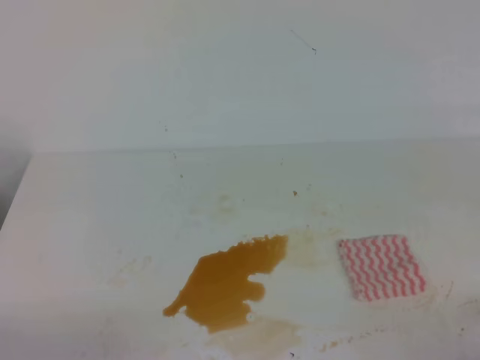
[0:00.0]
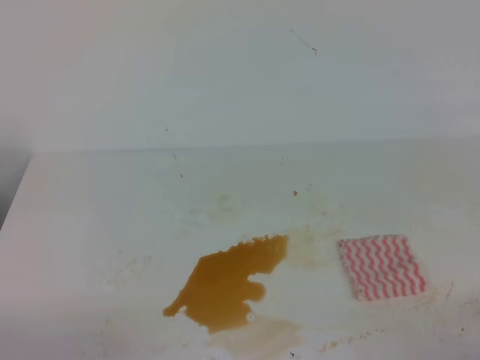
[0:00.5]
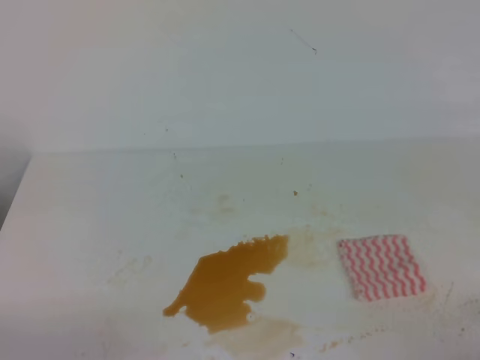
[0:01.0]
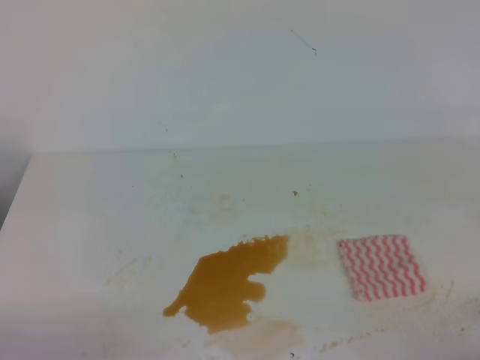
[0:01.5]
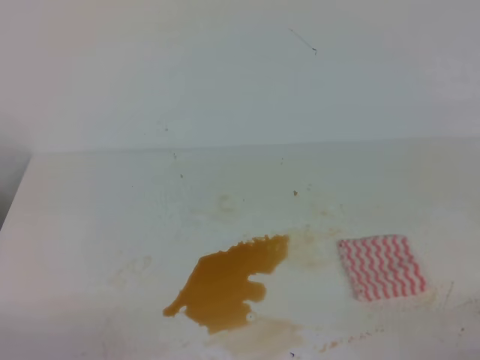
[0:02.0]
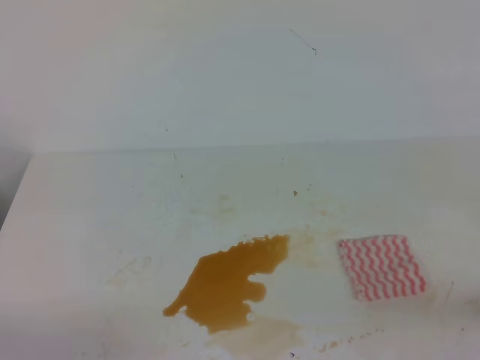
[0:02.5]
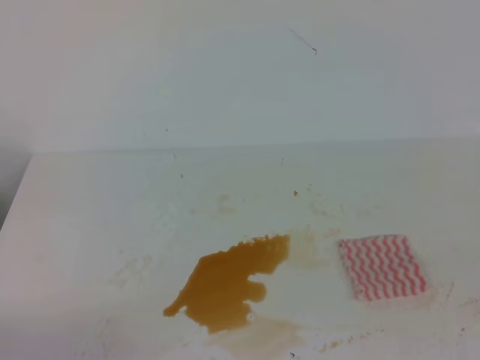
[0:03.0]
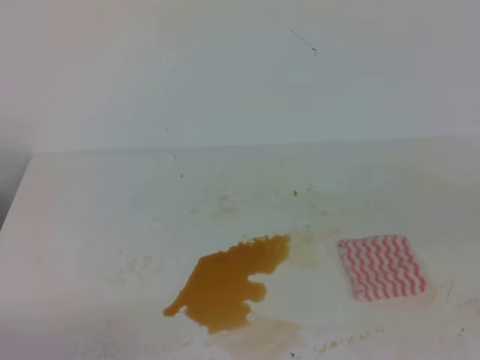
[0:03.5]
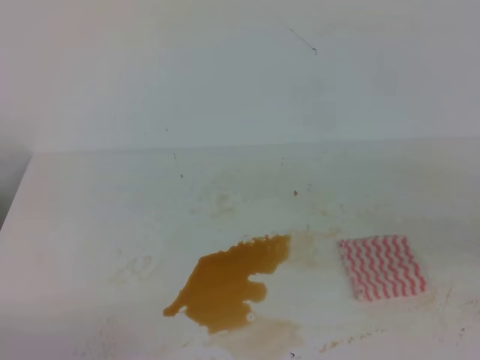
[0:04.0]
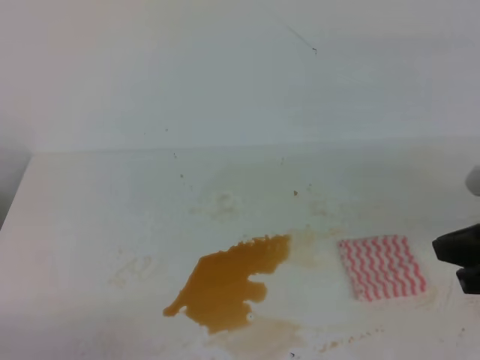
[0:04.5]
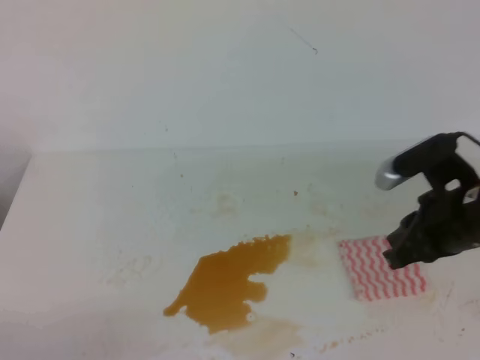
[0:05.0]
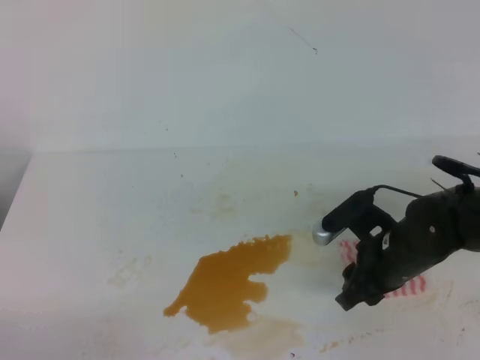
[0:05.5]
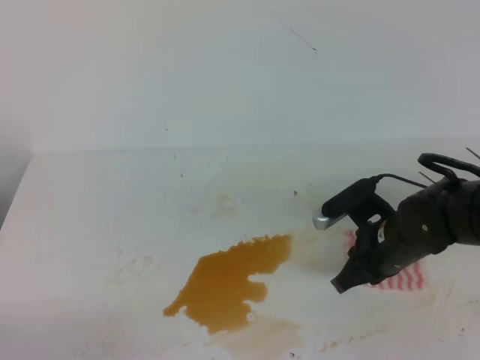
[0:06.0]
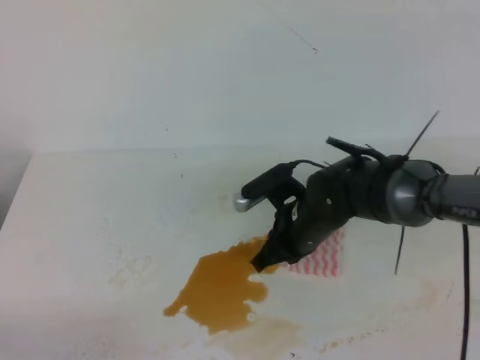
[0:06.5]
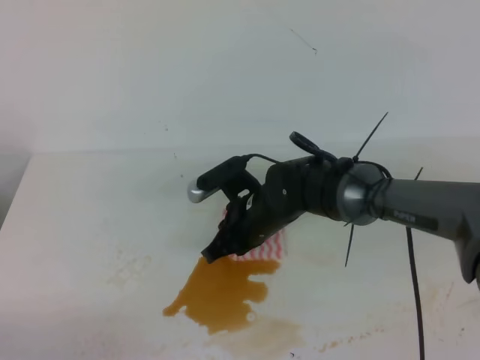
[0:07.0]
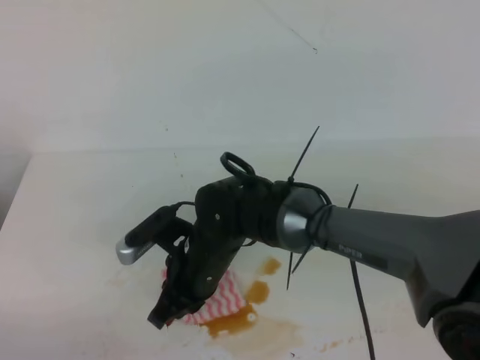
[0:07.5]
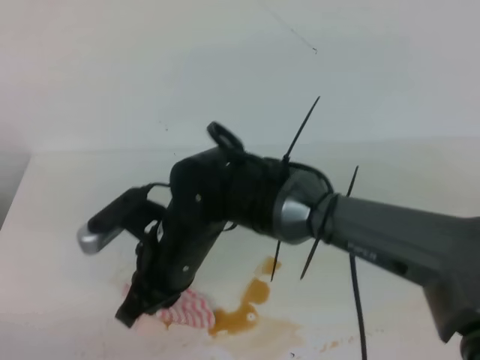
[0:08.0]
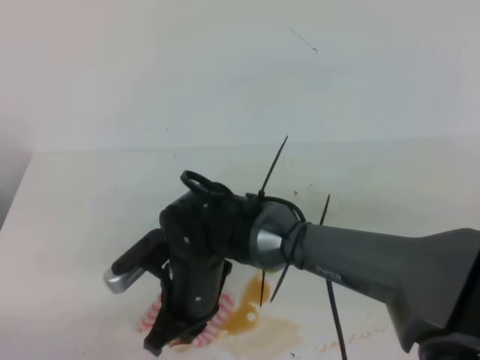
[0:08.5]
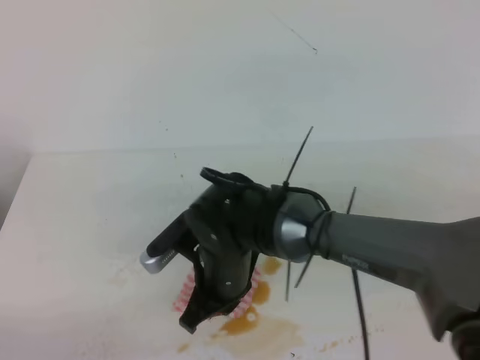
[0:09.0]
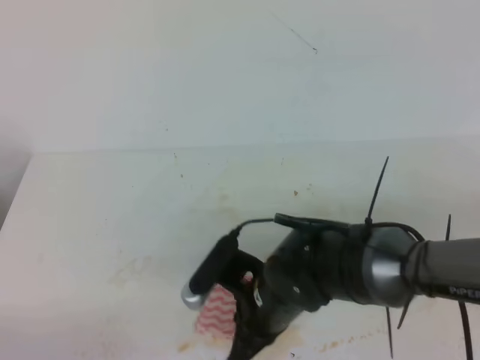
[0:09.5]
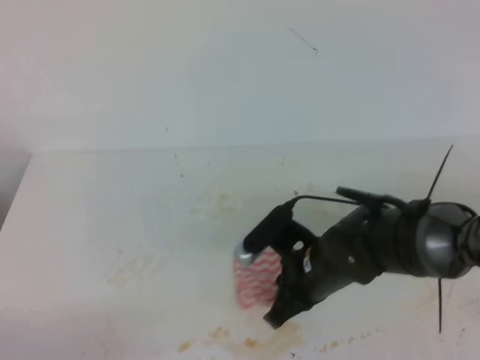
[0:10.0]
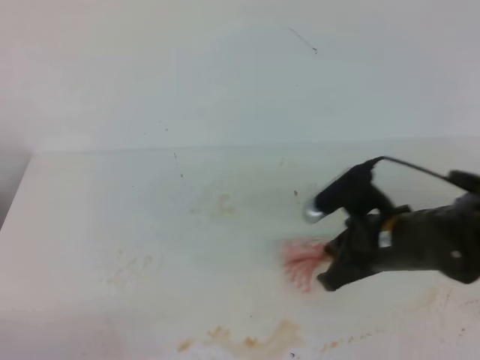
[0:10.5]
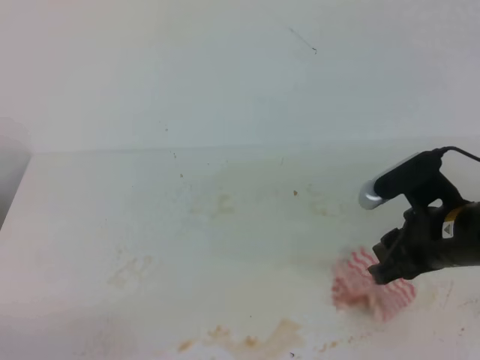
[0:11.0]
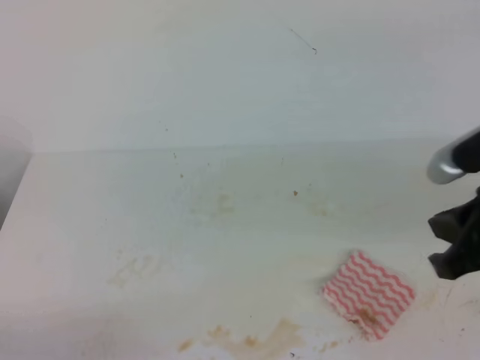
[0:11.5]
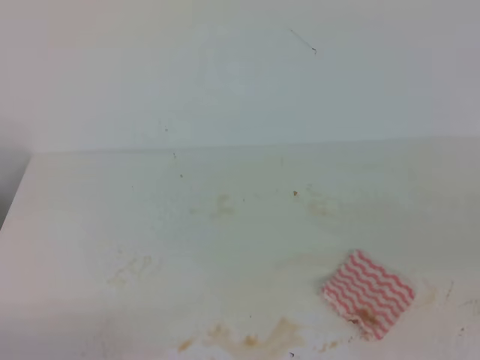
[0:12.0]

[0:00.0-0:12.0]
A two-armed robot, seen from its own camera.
0:00.0 to 0:02.0: The two grippers keep their place.
0:04.0 to 0:06.0: The right gripper shifts some 30 cm forward, downward and to the left, and opens, then closes once more.
0:06.0 to 0:08.0: The right gripper is displaced to the left by roughly 25 cm.
0:08.0 to 0:10.0: The right gripper shifts about 15 cm to the right.
0:10.0 to 0:12.0: The right gripper goes about 35 cm to the right, backward and upward, and opens, then closes once more.
